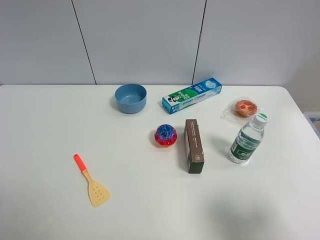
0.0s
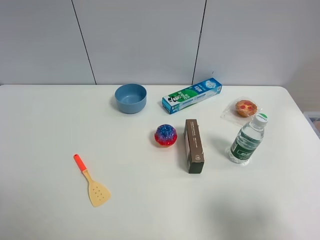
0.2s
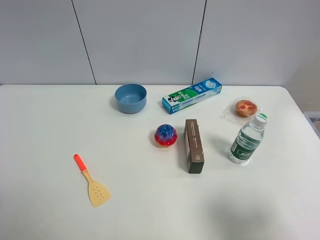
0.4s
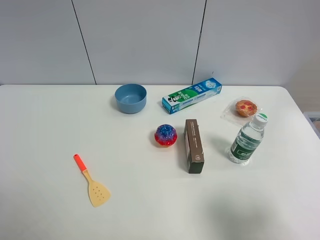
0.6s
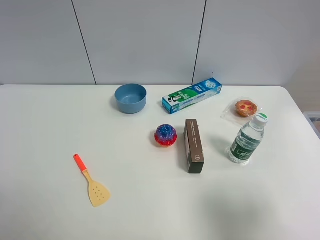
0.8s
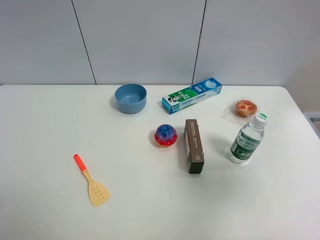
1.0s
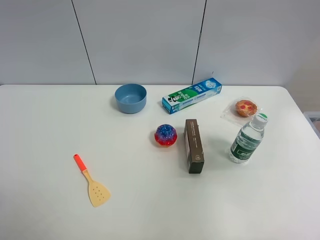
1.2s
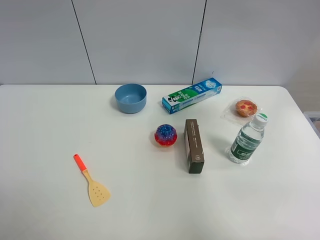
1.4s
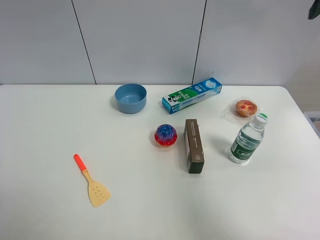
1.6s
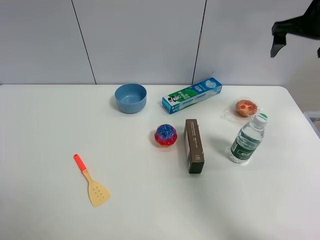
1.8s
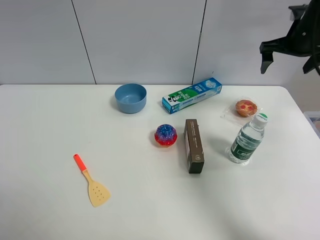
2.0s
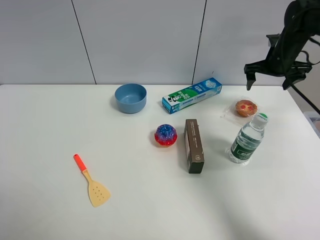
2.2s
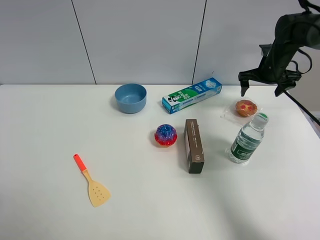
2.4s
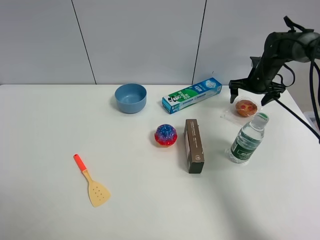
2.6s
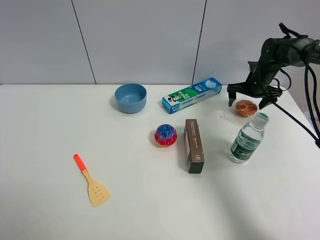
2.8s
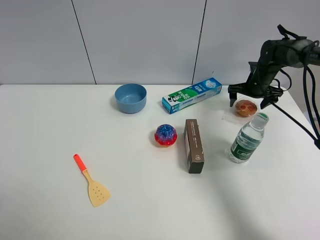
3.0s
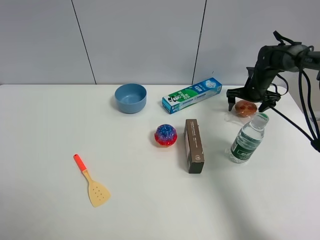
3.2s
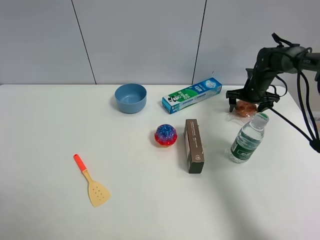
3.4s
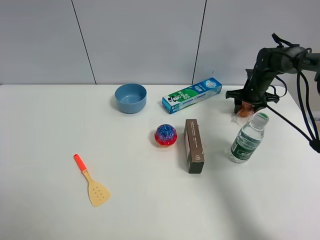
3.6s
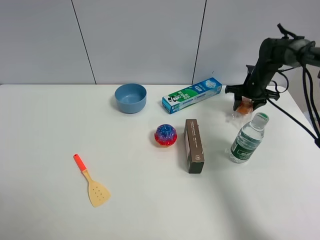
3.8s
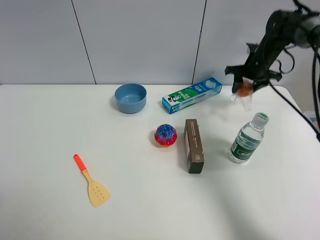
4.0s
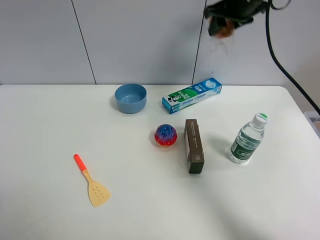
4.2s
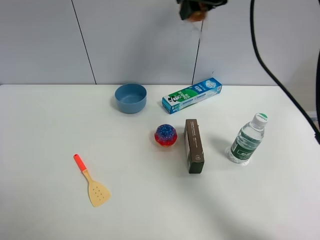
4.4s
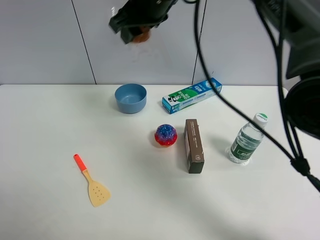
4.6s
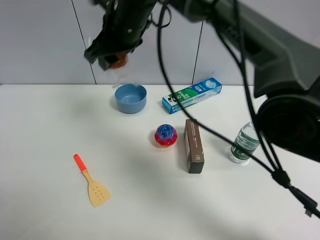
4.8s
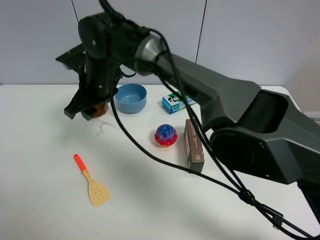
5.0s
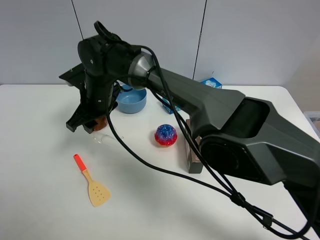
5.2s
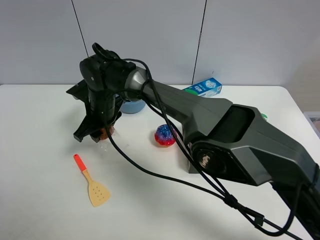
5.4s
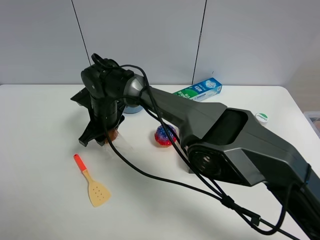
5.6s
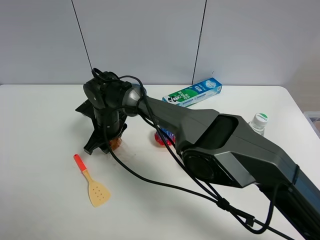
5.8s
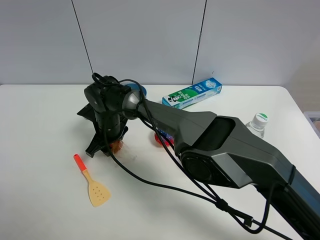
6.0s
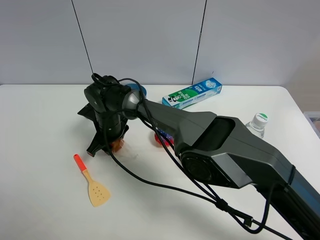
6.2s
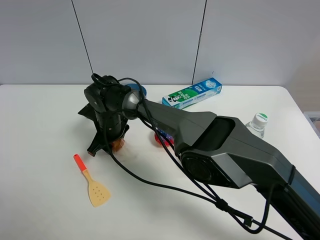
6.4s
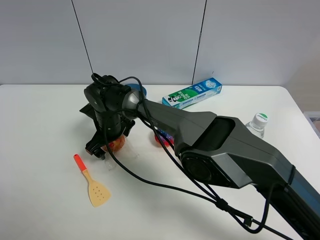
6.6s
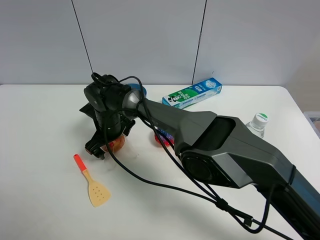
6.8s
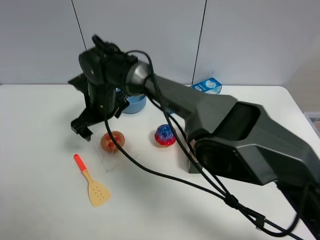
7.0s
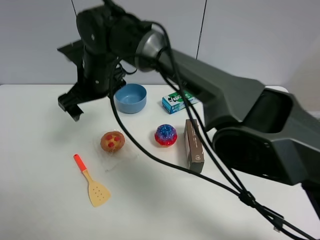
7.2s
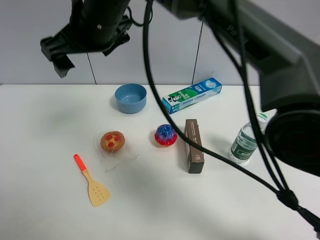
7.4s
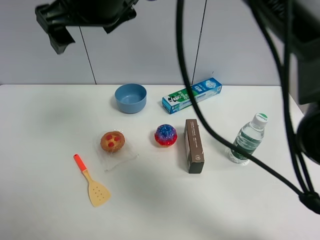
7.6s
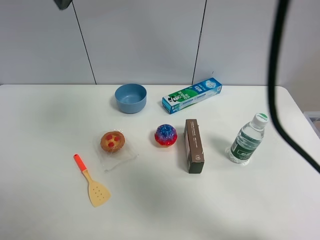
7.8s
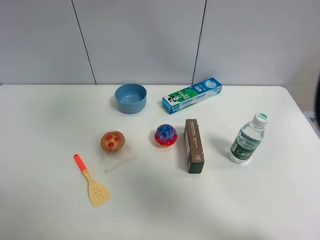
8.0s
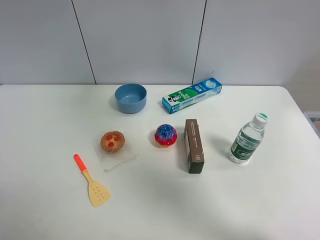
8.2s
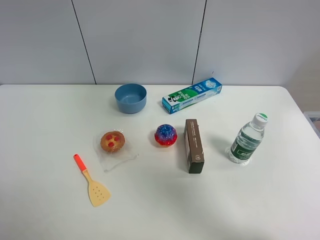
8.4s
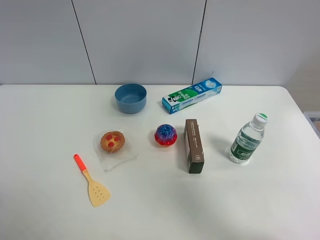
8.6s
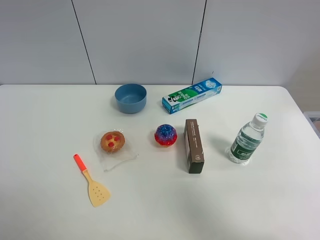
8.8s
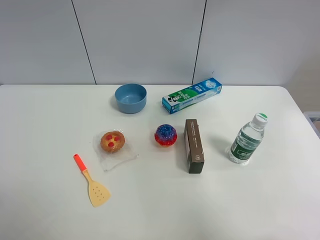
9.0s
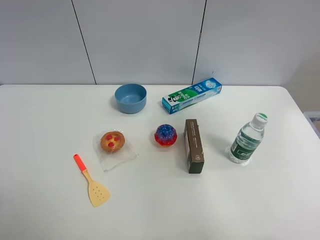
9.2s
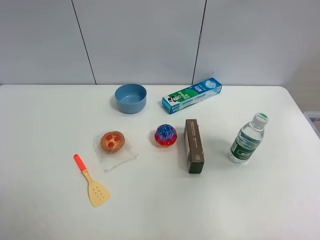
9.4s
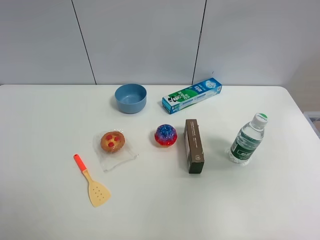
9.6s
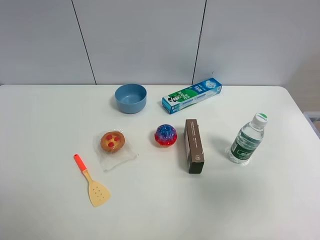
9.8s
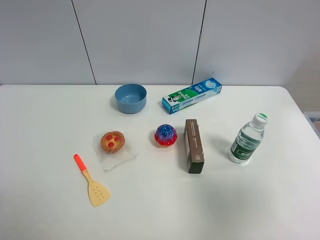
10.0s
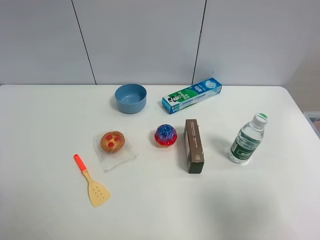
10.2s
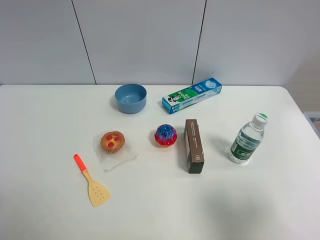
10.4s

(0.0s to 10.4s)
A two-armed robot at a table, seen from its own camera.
Task of the whole recording: the gripper move the object.
Step, 0.0s - 3.6s: Grasp the egg tart with the right gripper.
Step, 3.8s - 6.8s: Place the egg tart on the table with the right gripper.
0.0s - 1.4s: The right gripper moves forward and upward, some 30 cm.
1.4s - 3.0s: The right gripper goes approximately 40 cm downward and forward.
3.0s - 4.4s: The right gripper is displaced upward and to the left by some 35 cm, and closes.
4.4s - 6.0s: The right gripper goes about 35 cm downward and to the left.
6.0s - 7.4s: The right gripper shifts about 25 cm upward, and opens up.
7.4s - 9.0s: The right gripper goes roughly 35 cm to the right.
9.0s - 10.4s: The right gripper heads downward and backward, covering some 30 cm.

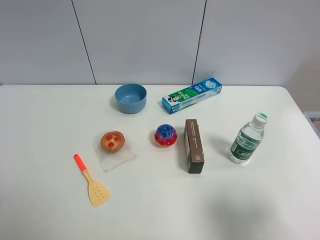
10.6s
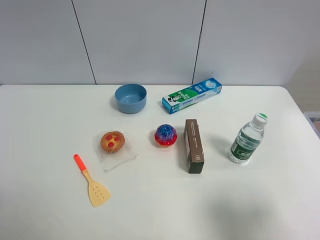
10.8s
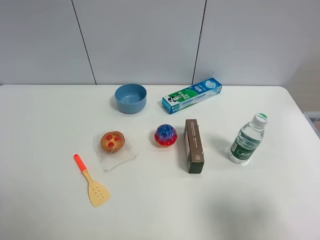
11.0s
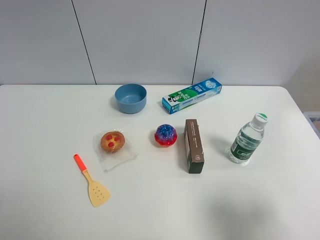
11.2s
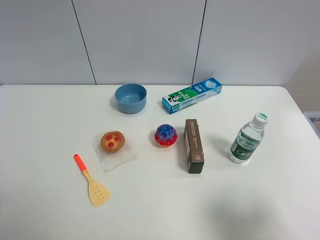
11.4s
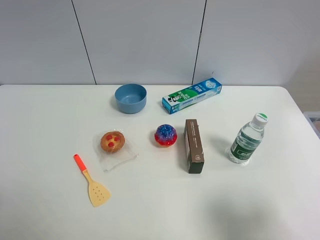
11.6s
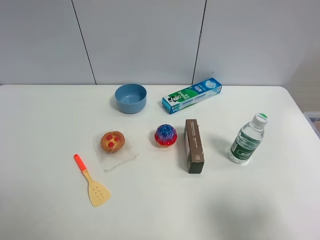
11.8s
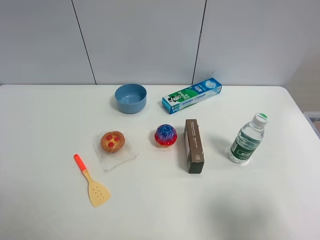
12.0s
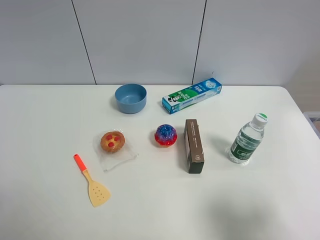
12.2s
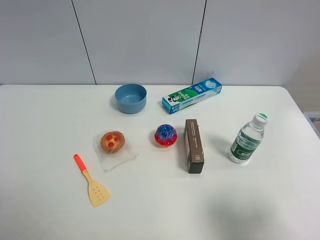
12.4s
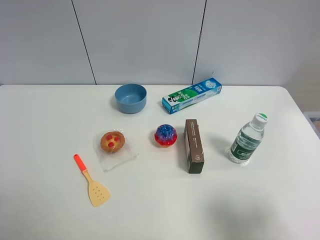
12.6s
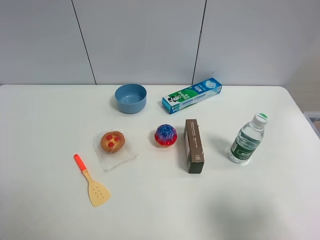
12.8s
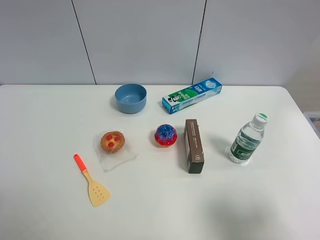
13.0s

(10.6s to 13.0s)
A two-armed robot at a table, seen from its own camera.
Task of the whole recording: the gripper move the object.
10.6s - 13.0s: Both grippers stay about where they are.

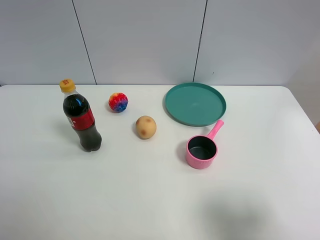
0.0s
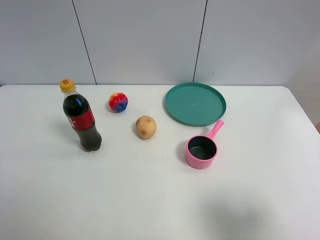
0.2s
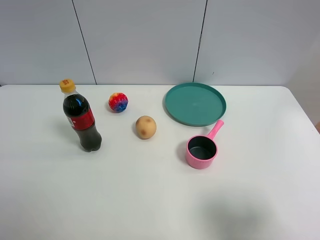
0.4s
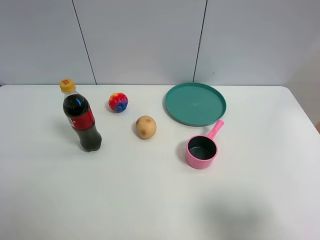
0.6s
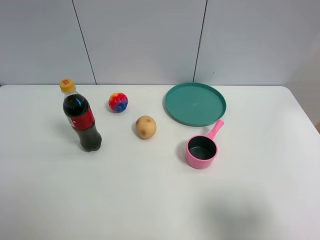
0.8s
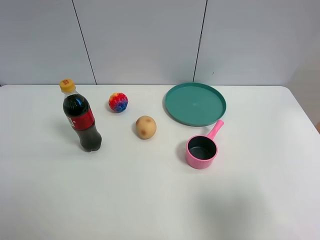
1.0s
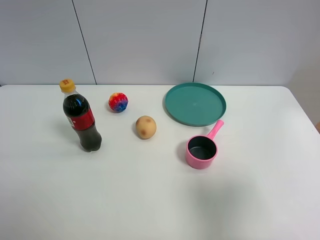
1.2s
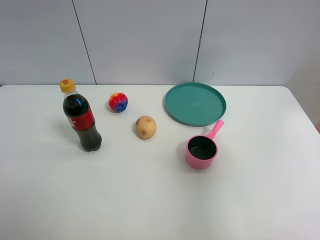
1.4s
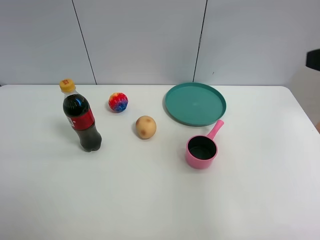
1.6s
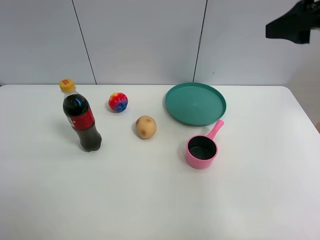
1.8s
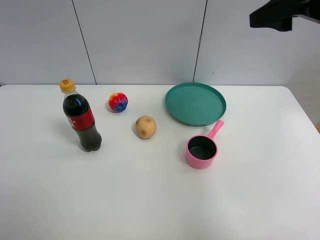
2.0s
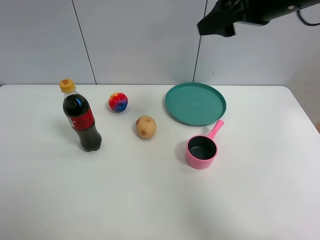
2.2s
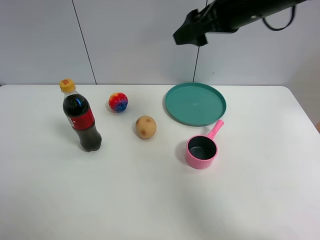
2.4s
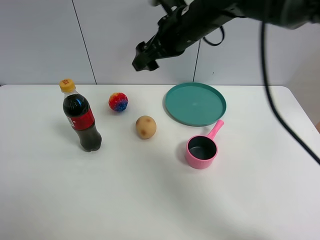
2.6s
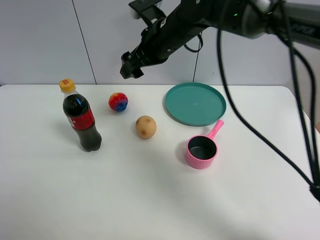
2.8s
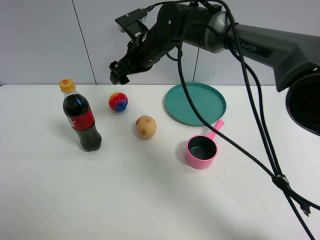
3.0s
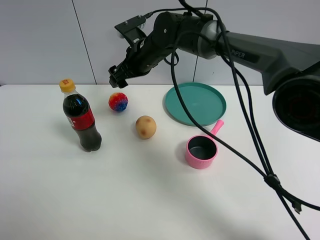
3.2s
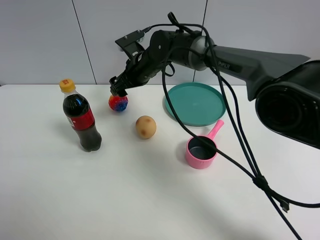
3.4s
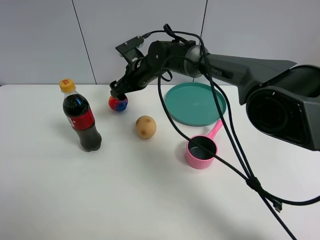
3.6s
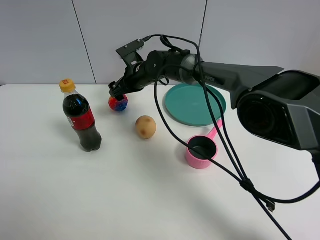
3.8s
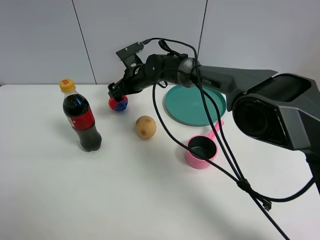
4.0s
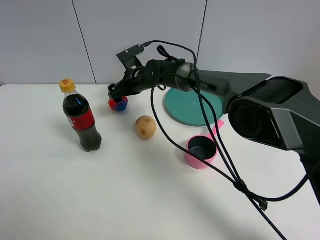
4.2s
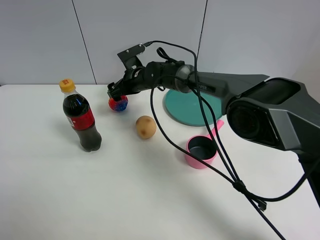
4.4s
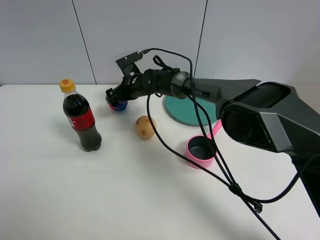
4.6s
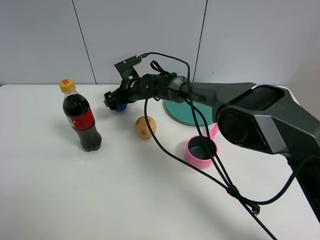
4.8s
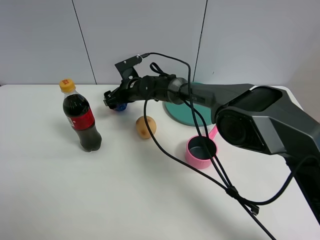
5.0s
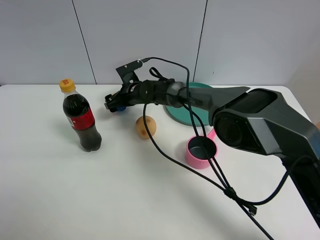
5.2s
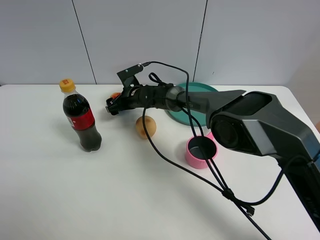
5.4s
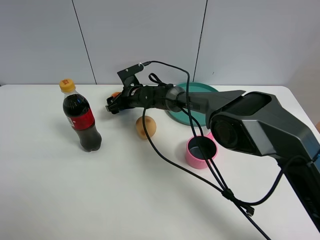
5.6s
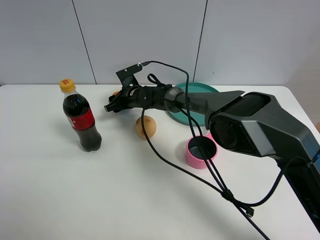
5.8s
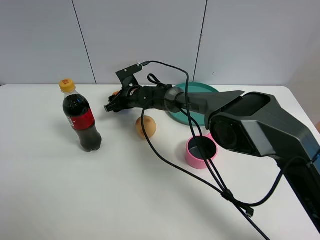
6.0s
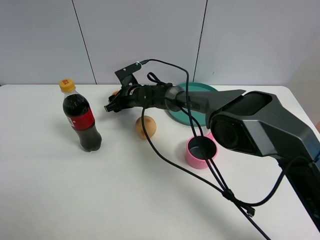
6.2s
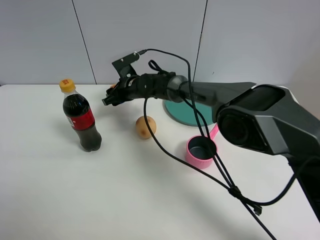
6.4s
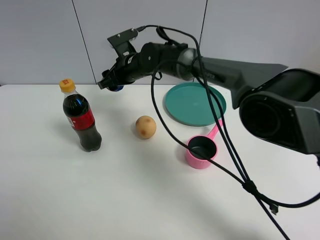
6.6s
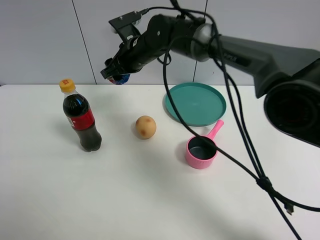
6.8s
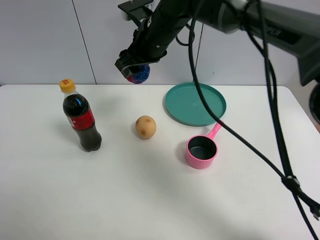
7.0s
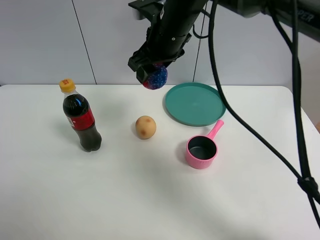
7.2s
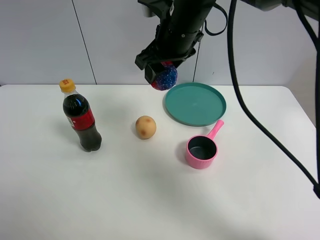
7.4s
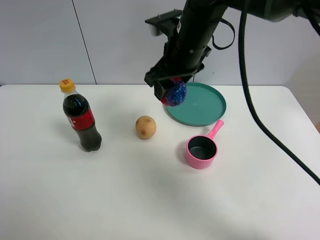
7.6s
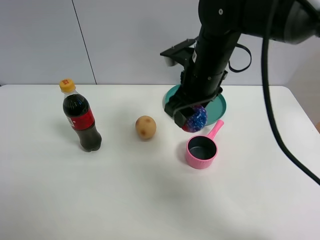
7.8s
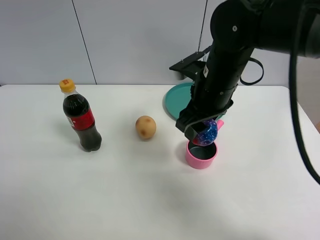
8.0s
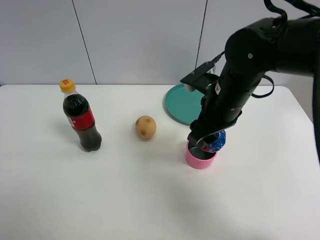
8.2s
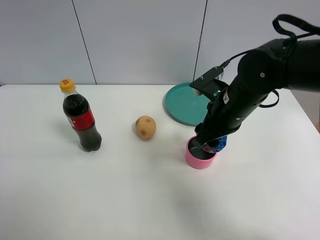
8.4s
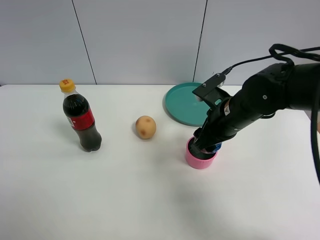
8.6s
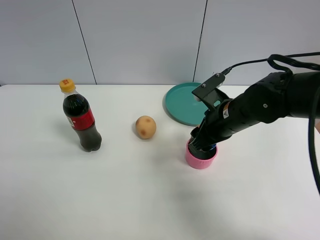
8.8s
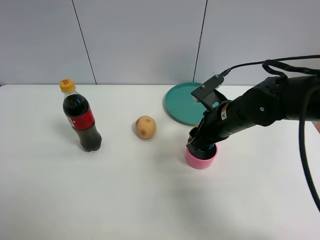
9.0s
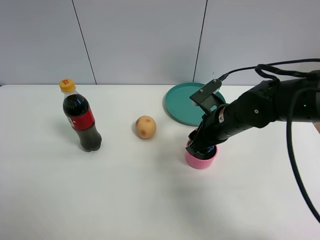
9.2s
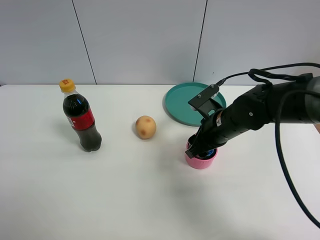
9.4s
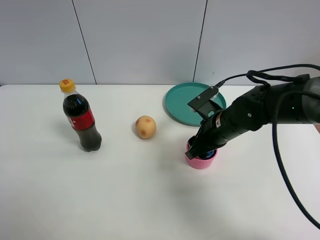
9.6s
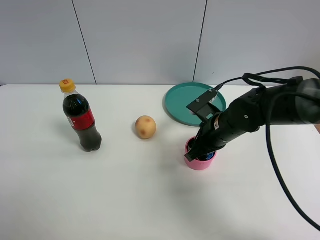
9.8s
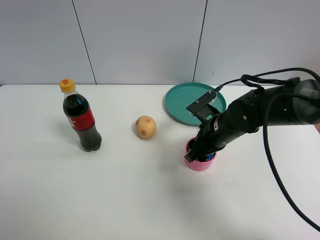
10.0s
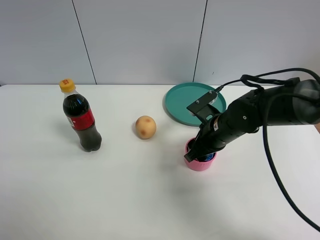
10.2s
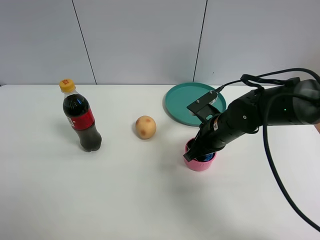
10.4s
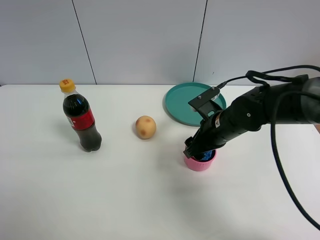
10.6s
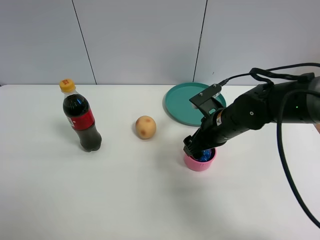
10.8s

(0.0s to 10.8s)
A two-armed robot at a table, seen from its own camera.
Task of the whole recording: the gripper move the object.
Step, 0.0s - 5.8s: Grasp the colorful ball with the right gripper.
Step, 6.0s - 10.6s: Place the colorful ball into the pink pot with the right gripper.
0.0s - 1.6s: The right gripper heads forward and upward, covering about 20 cm.
1.6s - 3.0s: The right gripper heads to the left, forward and downward, covering approximately 40 cm.
3.0s - 4.6s: The right gripper shifts some 15 cm downward.
4.6s - 6.2s: The right gripper closes its fingers.
6.2s - 7.8s: The right gripper goes roughly 30 cm upward, backward and to the right.
7.8s - 9.2s: The right gripper travels downward and to the right by approximately 10 cm.
9.2s - 10.8s: The right gripper opens.
